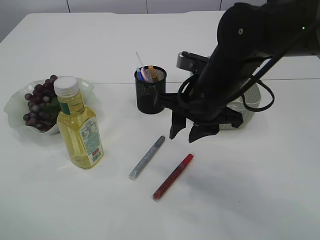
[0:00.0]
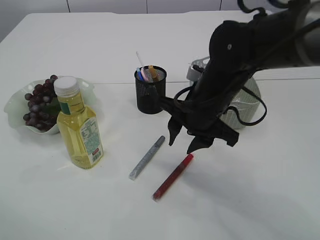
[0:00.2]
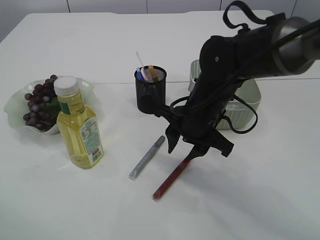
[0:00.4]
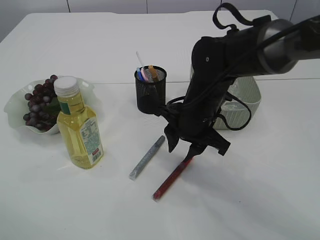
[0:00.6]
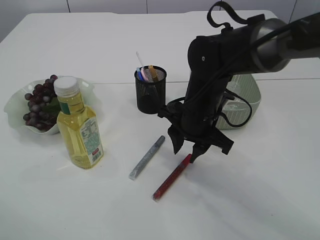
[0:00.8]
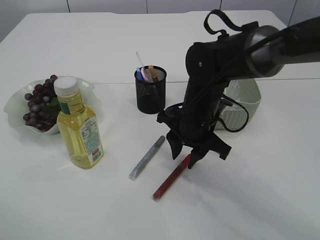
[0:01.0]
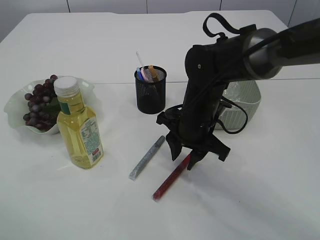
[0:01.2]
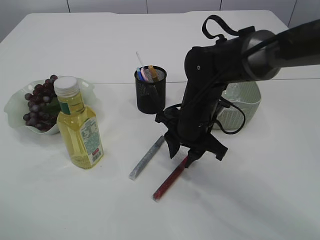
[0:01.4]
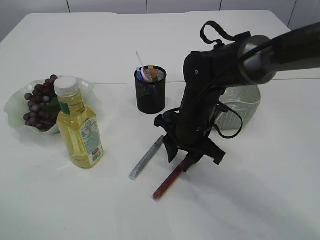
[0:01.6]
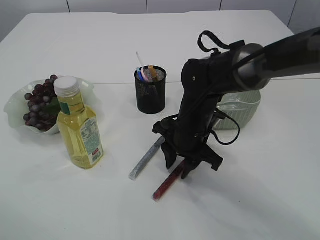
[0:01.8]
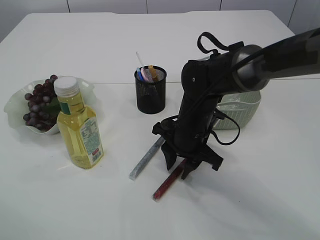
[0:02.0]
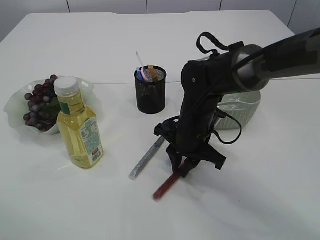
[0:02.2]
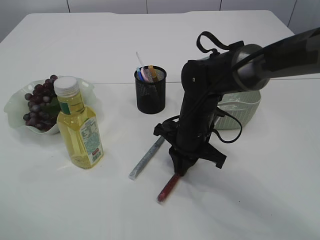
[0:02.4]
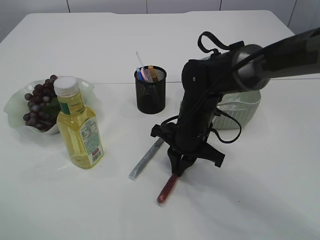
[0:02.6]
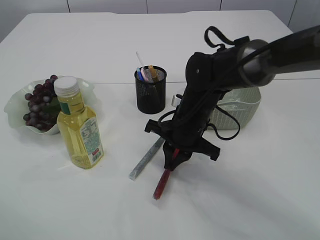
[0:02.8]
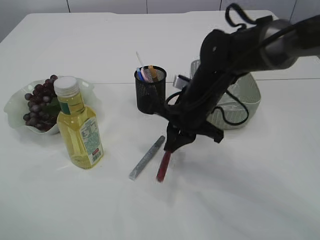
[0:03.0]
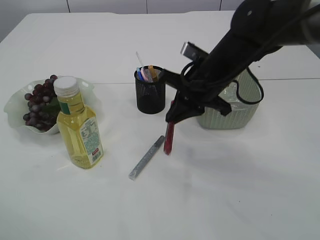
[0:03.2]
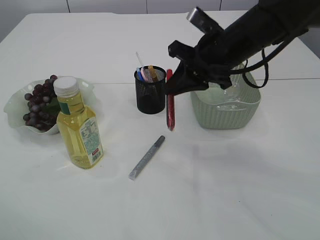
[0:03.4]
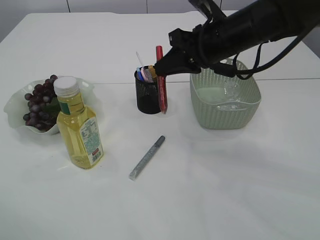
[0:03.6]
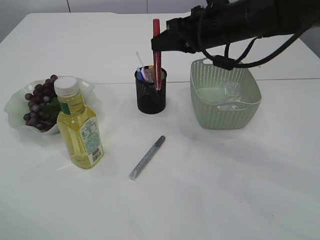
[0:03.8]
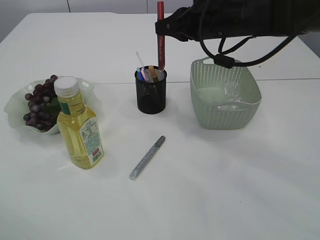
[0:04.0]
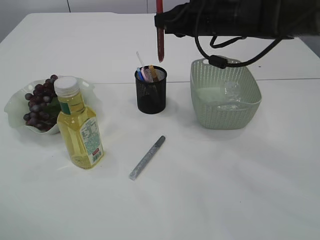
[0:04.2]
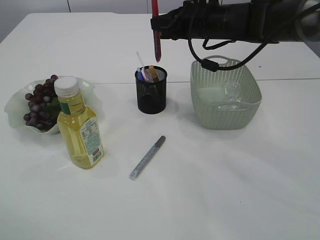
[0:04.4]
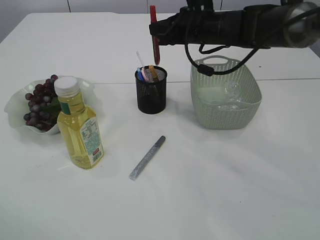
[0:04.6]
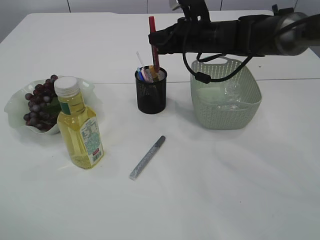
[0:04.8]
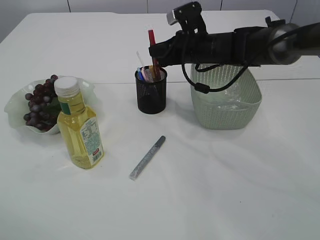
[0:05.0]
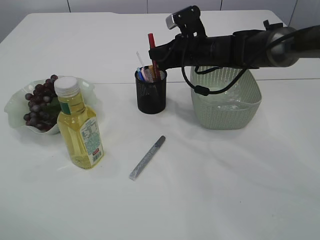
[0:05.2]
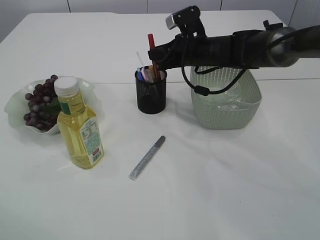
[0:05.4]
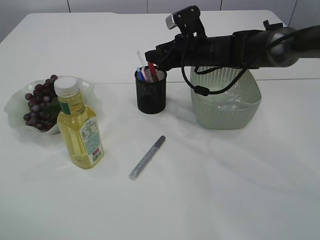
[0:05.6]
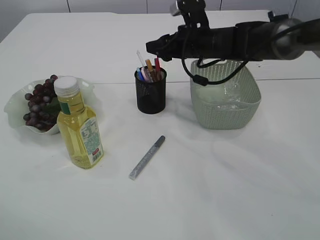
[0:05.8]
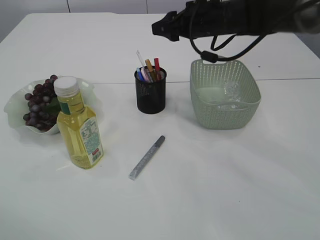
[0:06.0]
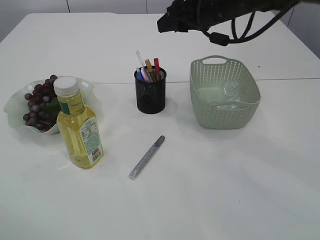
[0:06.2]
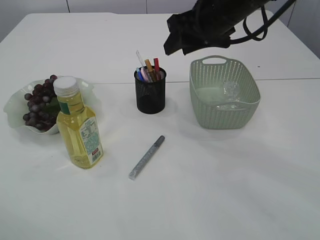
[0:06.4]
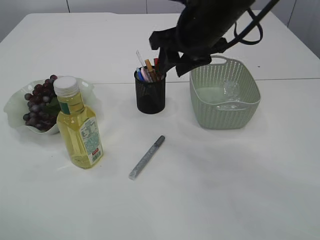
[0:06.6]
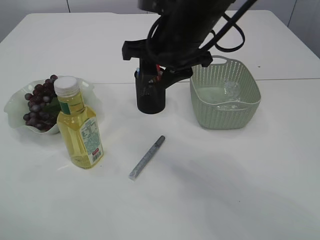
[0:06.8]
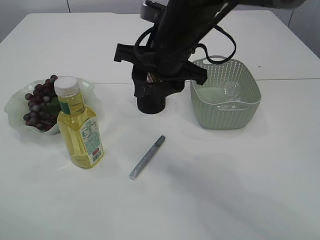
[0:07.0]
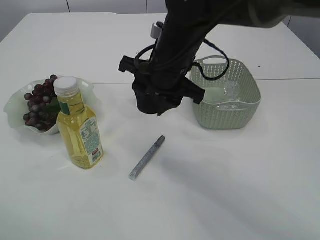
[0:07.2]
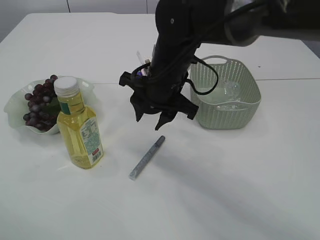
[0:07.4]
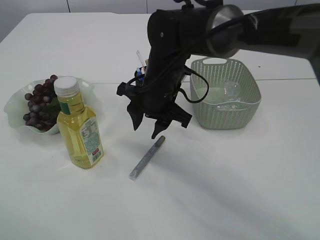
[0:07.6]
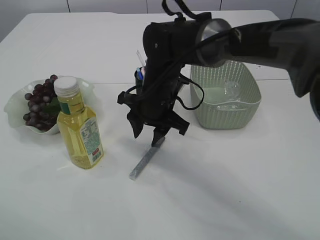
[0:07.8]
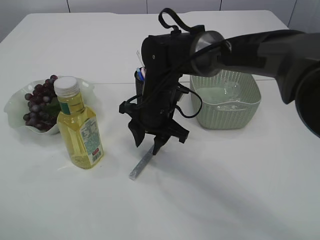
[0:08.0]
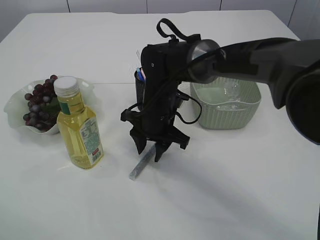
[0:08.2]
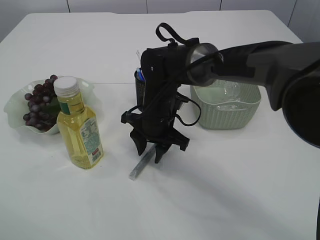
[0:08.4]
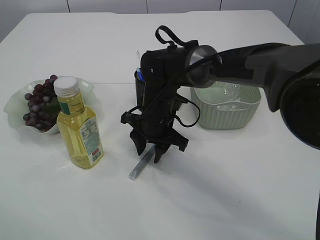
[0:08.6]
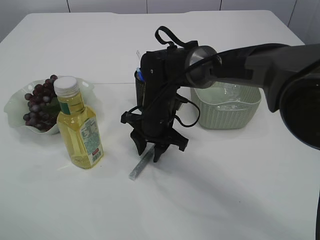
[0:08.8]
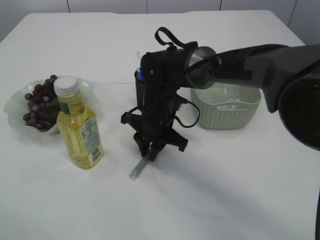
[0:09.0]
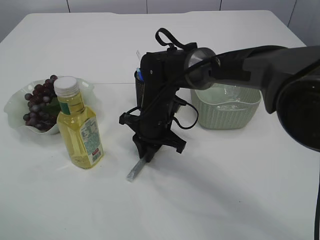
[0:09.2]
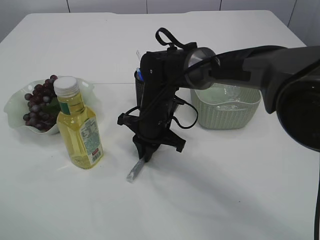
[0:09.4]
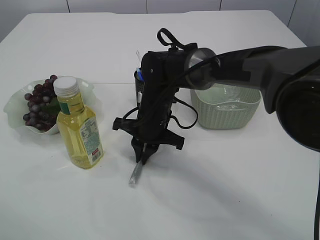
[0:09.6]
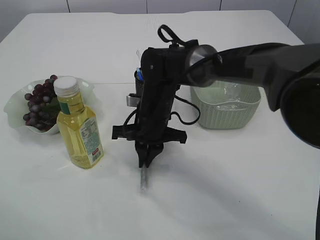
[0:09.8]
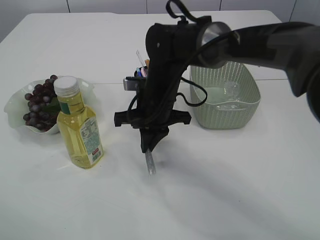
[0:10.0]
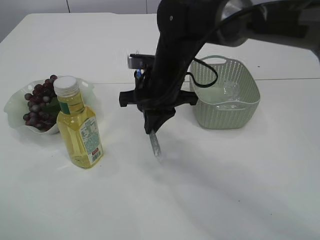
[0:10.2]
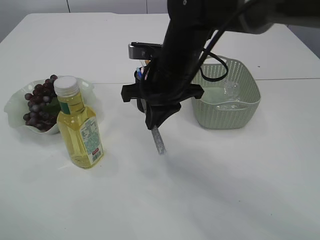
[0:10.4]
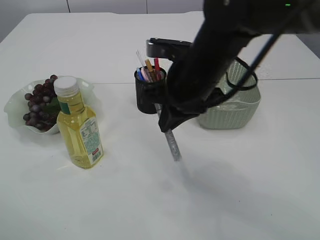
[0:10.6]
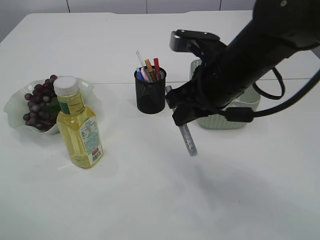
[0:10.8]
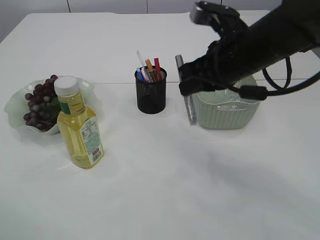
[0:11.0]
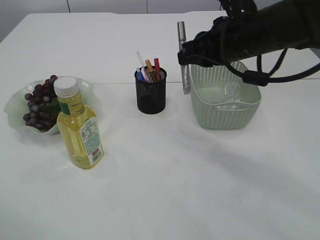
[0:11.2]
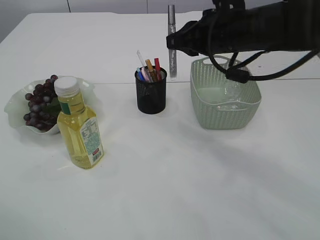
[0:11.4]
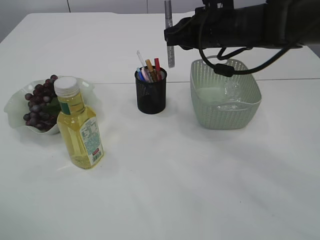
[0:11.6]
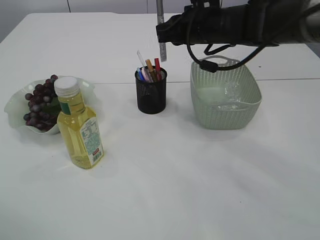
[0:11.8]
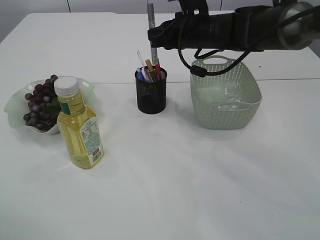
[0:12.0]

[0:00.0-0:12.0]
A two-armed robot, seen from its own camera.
Step, 0:00.0 to 0:03.2: pick up the red glue.
Step, 0:03.4 to 0:06.2: place the red glue into the pen holder.
Step, 0:06.4 to 0:10.4: pick up the silver glue.
0:00.0 to 0:01.6: The right gripper heads downward, covering roughly 10 cm.
0:01.6 to 0:03.0: The right gripper closes.
0:03.0 to 0:04.4: The right gripper is displaced upward and forward by some 15 cm.
0:04.4 to 0:06.0: The right gripper opens.
0:06.0 to 0:07.6: The right gripper goes some 15 cm to the left, backward and downward.
0:07.6 to 0:09.0: The right gripper moves downward, about 5 cm.
0:09.0 to 0:10.4: The right gripper goes roughly 10 cm upward.
0:10.4 to 0:12.0: The right gripper shifts about 10 cm forward and to the right.

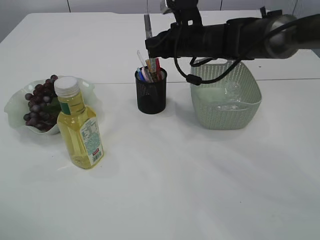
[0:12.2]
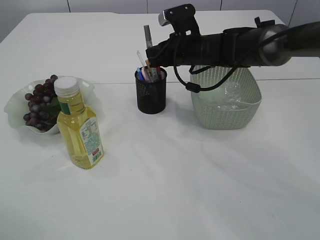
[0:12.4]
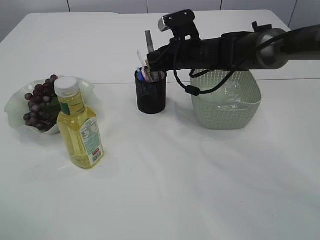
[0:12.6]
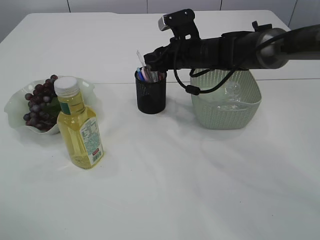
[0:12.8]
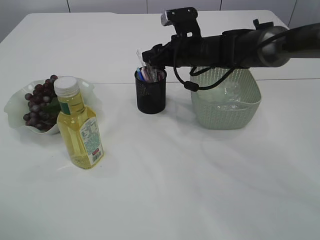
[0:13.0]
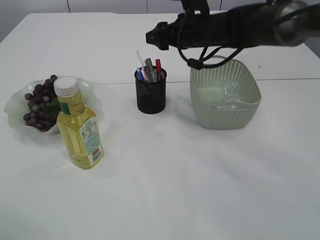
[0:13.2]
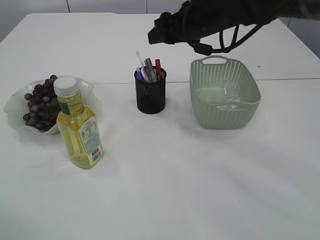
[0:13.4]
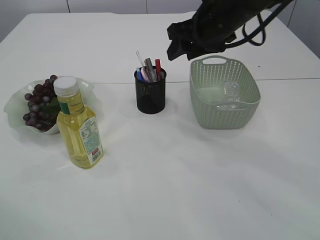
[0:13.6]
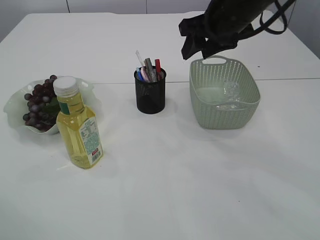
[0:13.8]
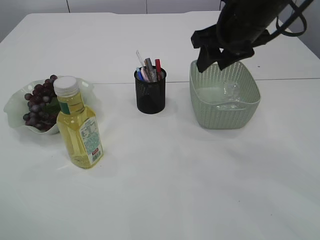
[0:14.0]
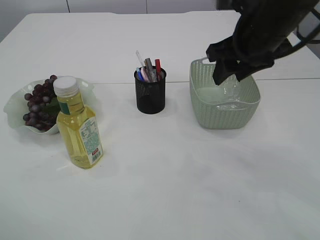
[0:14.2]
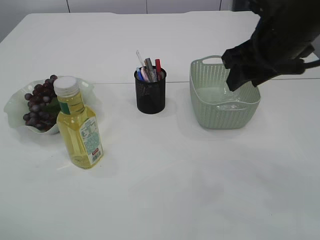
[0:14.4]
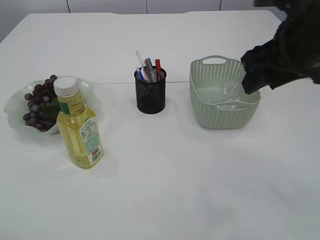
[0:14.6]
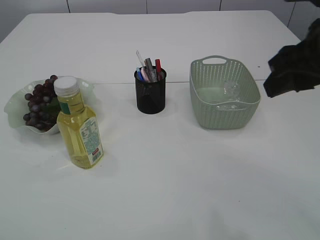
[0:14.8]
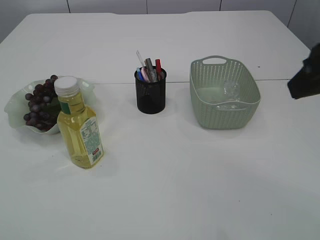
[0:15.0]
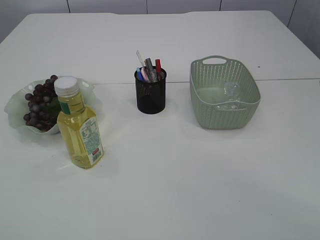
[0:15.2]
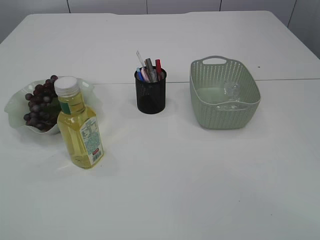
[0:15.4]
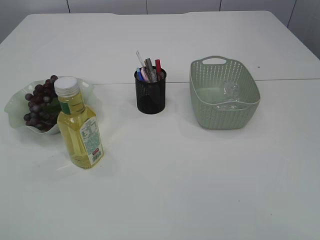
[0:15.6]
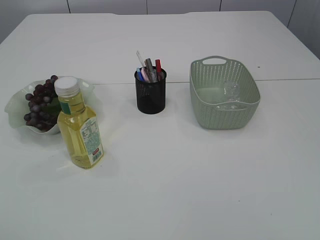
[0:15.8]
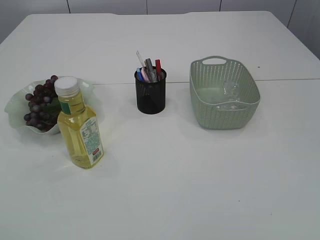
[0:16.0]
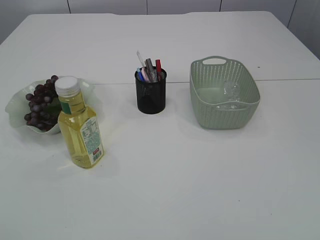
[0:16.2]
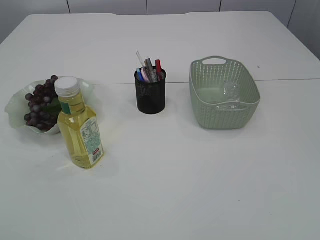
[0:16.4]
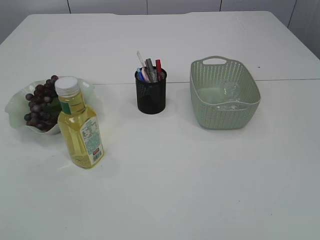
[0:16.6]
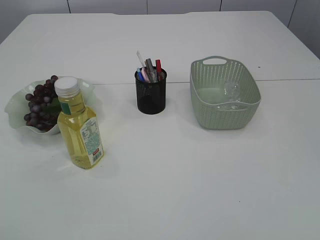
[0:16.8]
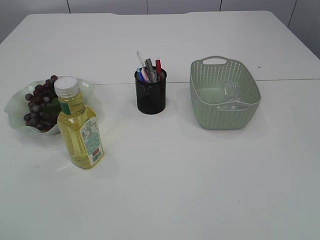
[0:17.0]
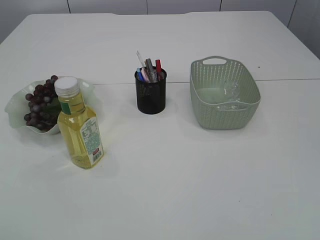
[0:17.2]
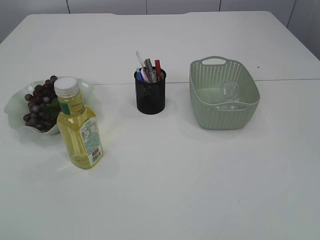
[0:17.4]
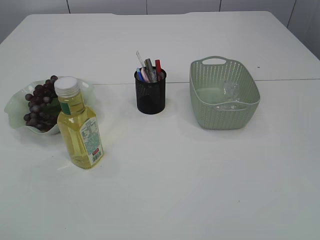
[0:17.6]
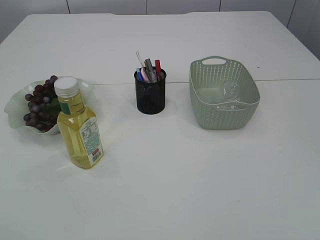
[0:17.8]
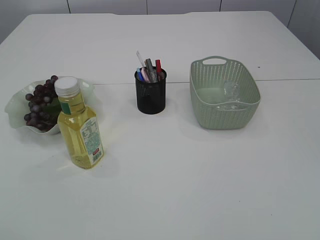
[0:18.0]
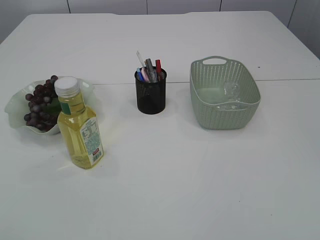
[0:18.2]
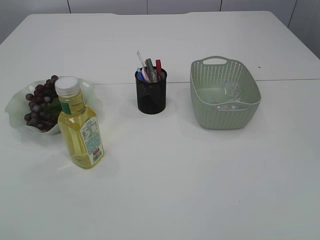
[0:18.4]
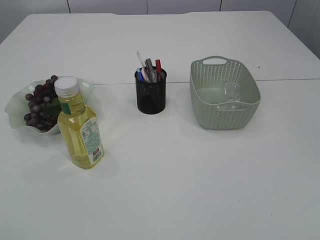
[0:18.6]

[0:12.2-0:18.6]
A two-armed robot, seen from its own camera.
0:12.2 to 0:13.8: The right gripper goes about 10 cm upward and backward, and opens up.
0:13.8 to 0:15.4: The right gripper moves backward, roughly 30 cm, while the left gripper is displaced backward and to the left by roughly 15 cm.

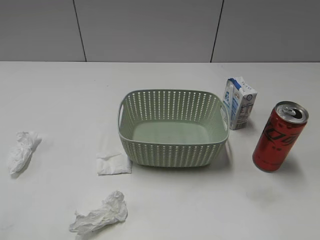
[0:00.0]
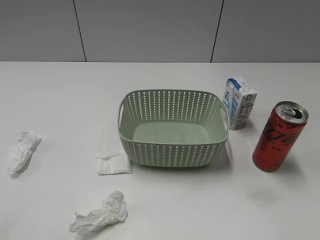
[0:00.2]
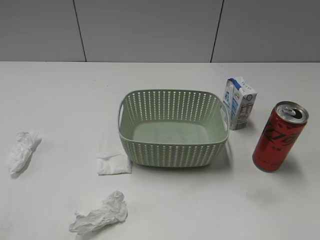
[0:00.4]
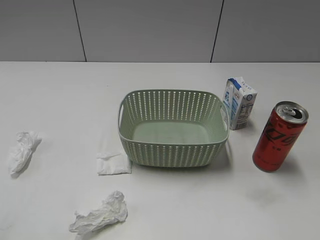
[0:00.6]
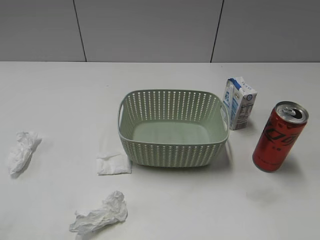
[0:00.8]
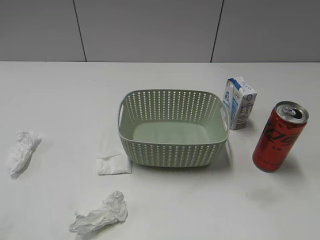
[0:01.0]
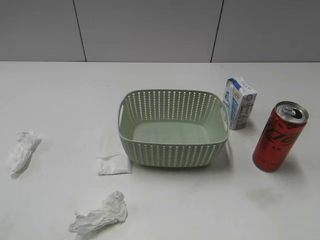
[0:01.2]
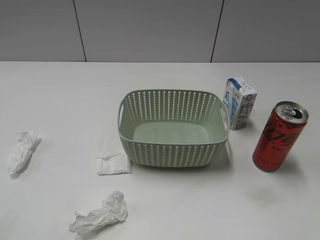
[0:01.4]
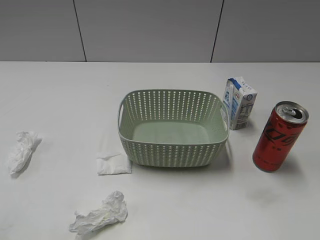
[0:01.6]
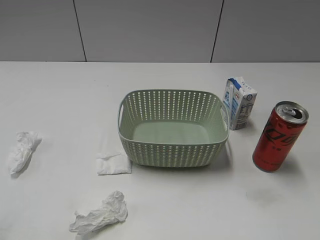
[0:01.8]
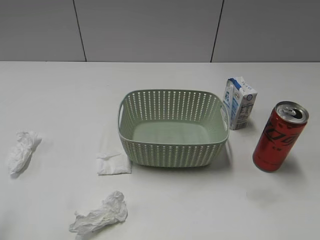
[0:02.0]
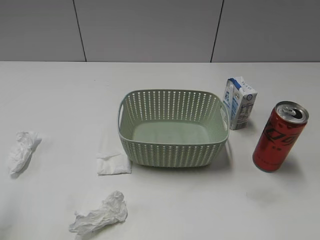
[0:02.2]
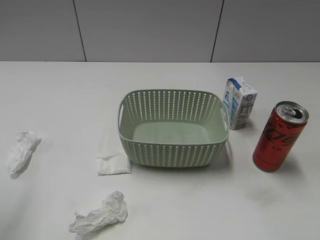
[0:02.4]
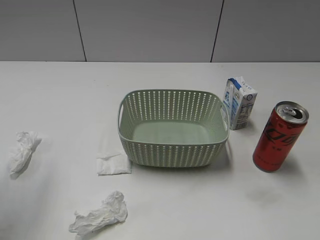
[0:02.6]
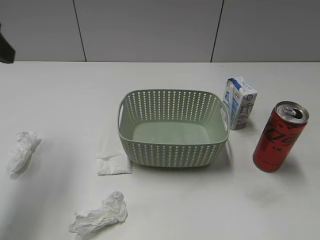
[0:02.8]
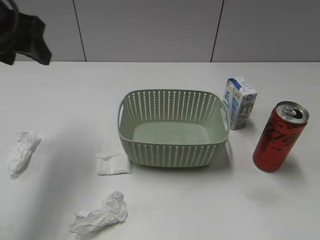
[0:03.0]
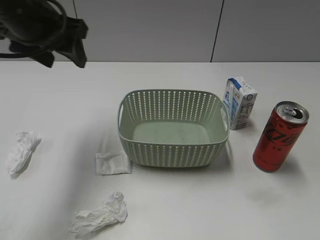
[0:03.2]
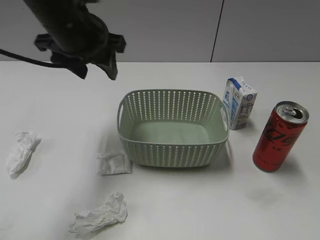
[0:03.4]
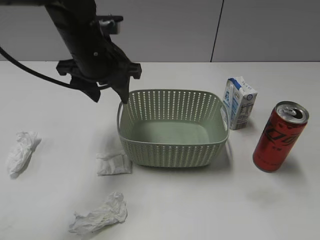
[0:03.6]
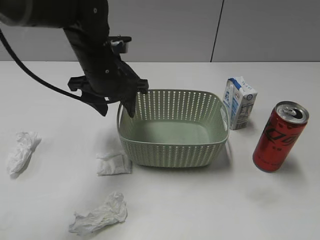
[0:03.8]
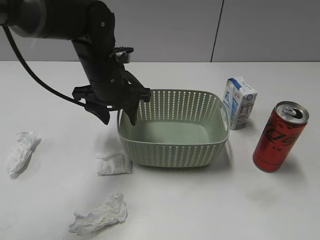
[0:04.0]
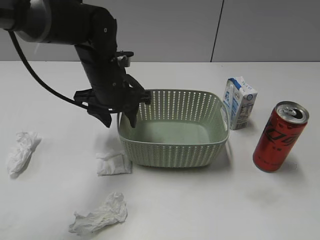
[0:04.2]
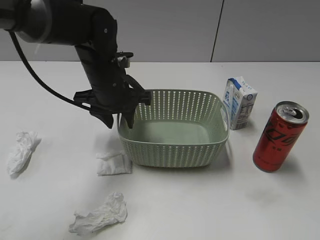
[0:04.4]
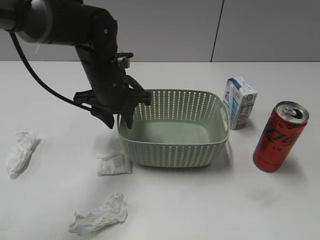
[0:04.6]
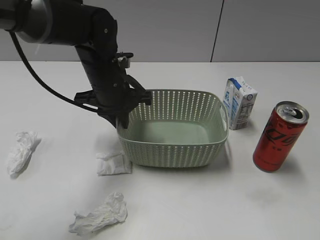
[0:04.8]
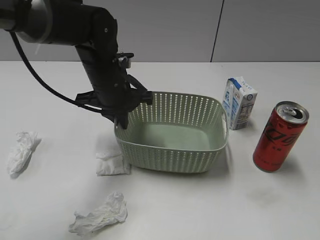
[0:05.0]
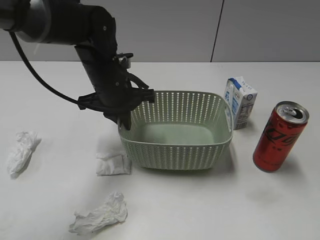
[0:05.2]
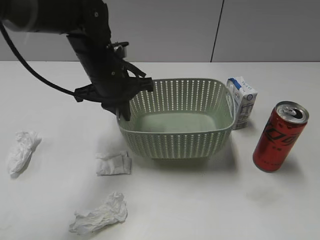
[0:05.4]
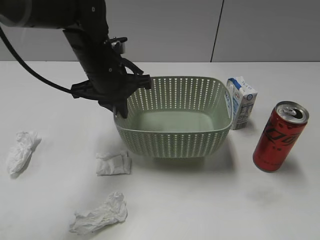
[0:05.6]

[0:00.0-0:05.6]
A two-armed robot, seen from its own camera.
Step, 0:02.8 to 0:04.8: Grasp the basket with left gripper.
0:01.4 to 0:02.8: The left gripper travels forward by some 25 cm.
0:02.8 to 0:04.2: The left gripper shifts approximately 25 cm to the right, downward and forward.
0:04.2 to 0:05.6: The left gripper closes its fingers.
